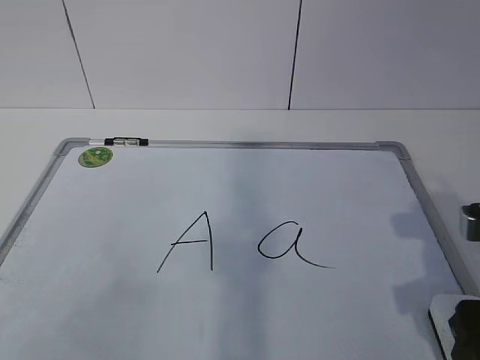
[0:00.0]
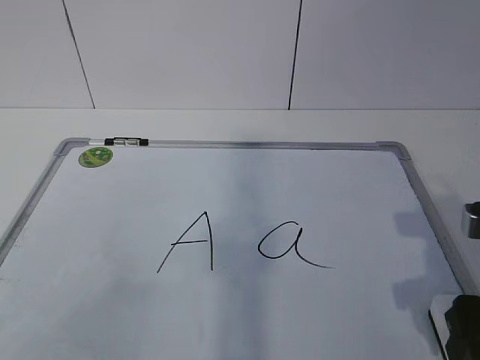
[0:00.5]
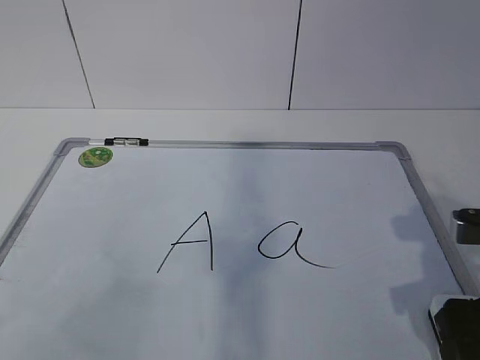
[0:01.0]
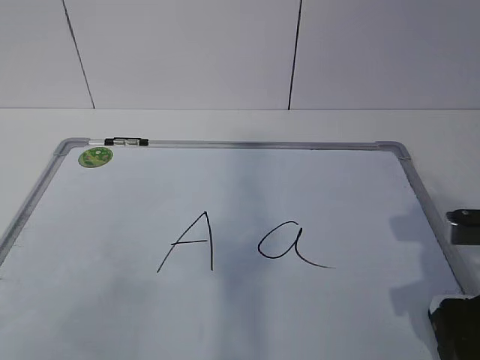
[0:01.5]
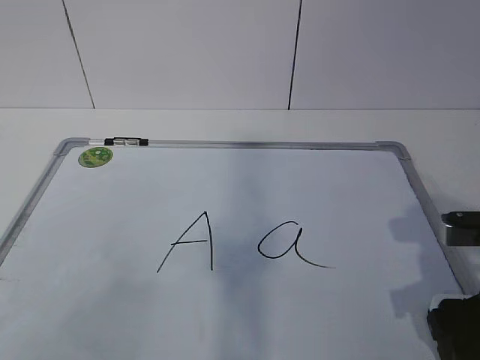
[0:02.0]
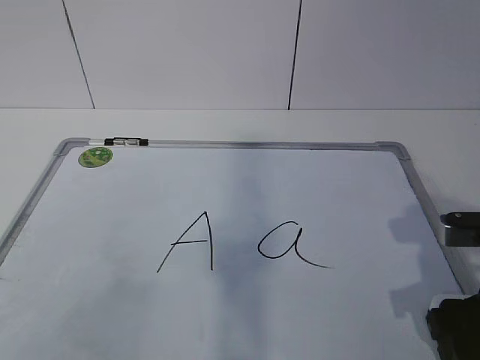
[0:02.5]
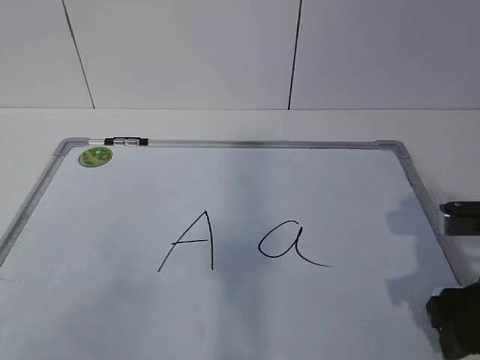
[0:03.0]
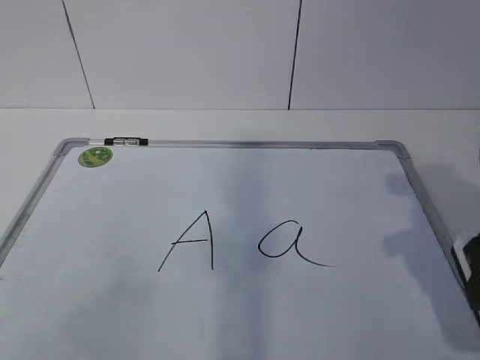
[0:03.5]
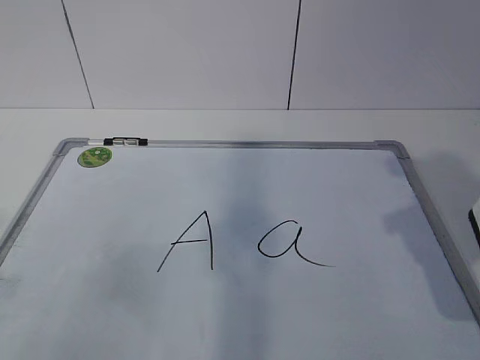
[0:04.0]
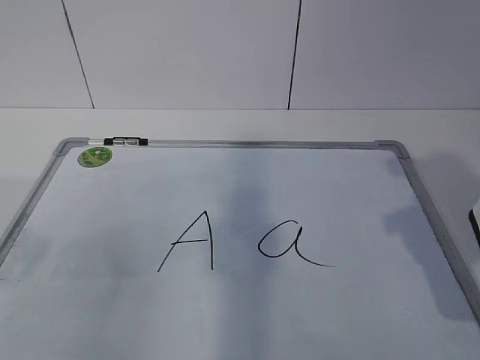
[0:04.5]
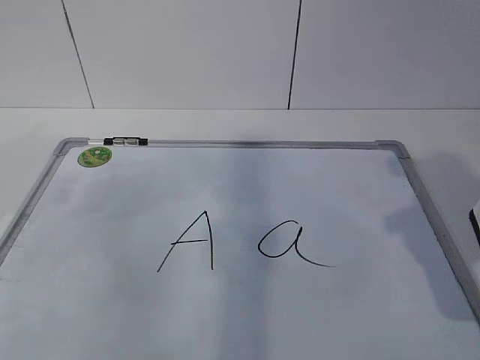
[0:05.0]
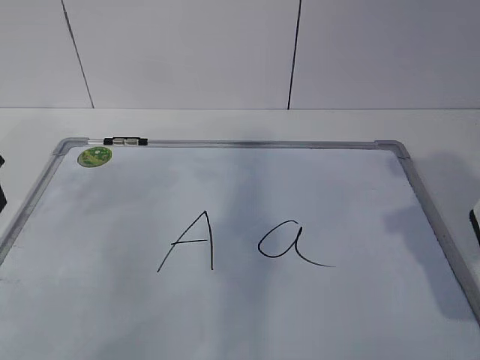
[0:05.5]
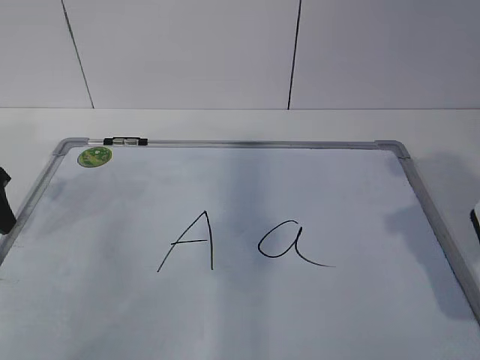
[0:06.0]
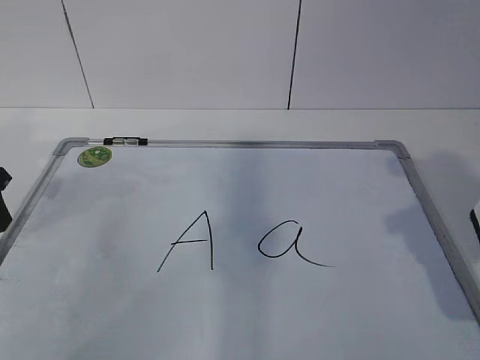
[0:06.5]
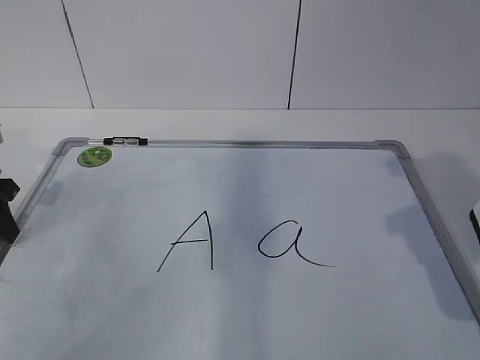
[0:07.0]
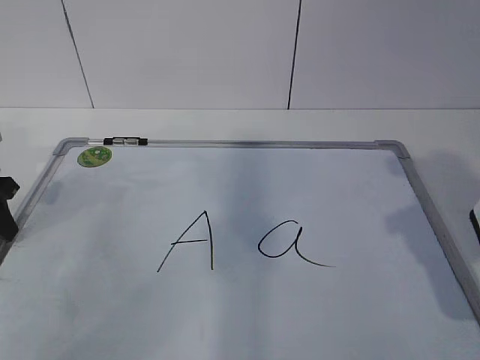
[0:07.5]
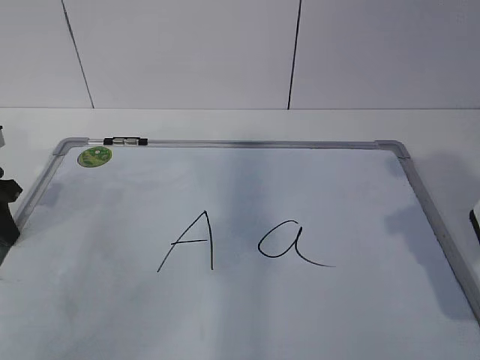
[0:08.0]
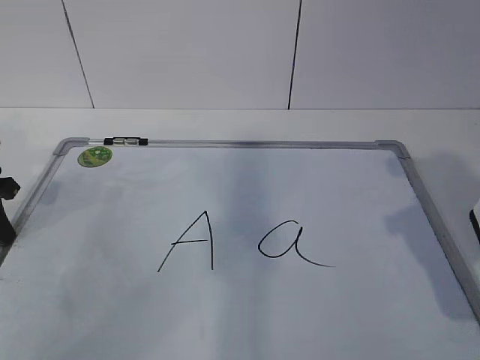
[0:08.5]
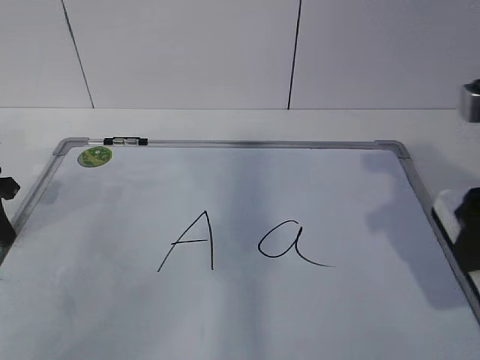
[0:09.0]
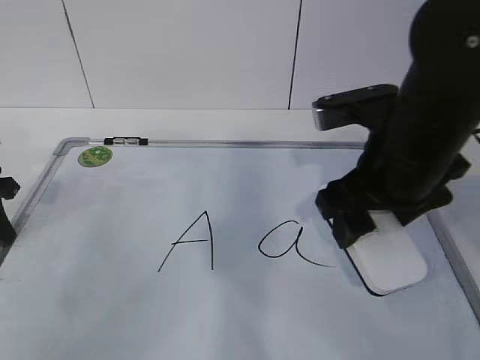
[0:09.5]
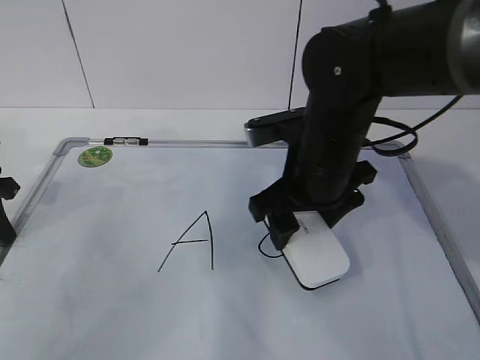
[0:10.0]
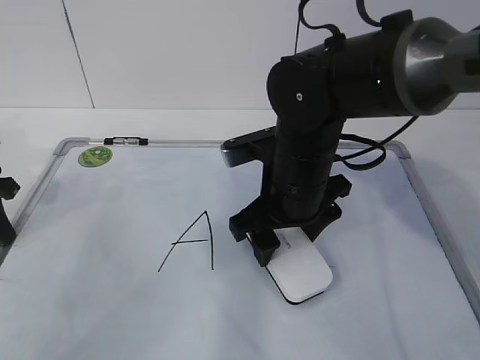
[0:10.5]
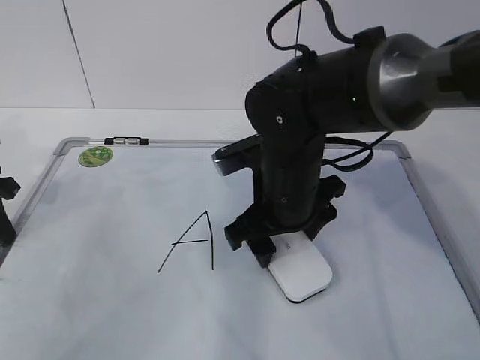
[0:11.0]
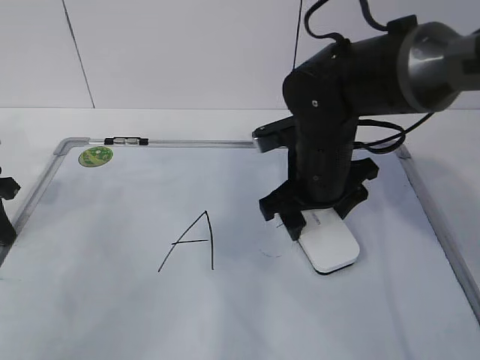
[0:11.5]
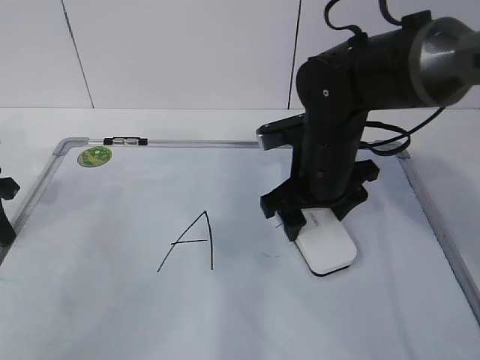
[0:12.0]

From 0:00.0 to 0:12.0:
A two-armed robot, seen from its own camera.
Task of the whole recording: pick up the eraser on the blackboard and erase the letter "a".
Step, from 0:00.5 to 0:05.0: Hold the drawing board steady with your left hand.
Step, from 0:05.5 to 0:09.5: Erase the letter a with your right hand.
From 0:00.0 to 0:02.0: The right gripper closes its fingers.
From 0:02.0 to 0:04.0: The right gripper shifts about 10 cm upward, and closes up.
From 0:04.0 to 0:06.0: The left gripper is displaced forward by about 30 cm.
From 0:06.0 to 0:08.0: The left gripper closes.
From 0:08.0 to 0:10.0: The right gripper travels to the left, forward and downward by some 25 cm.
From 0:10.0 to 0:12.0: The grippers move only a little.

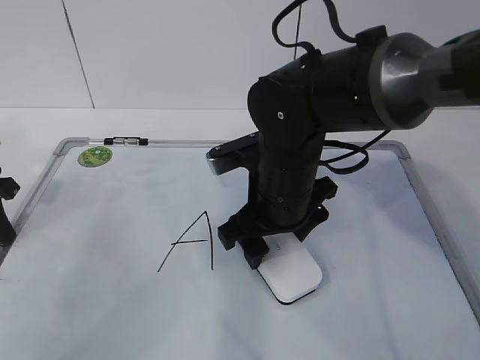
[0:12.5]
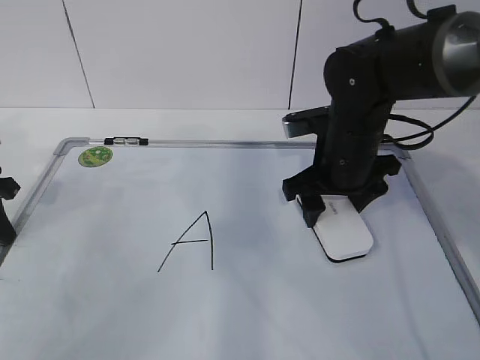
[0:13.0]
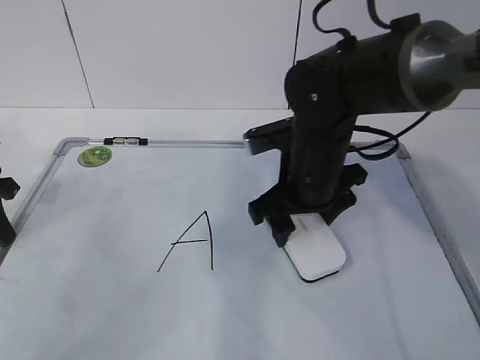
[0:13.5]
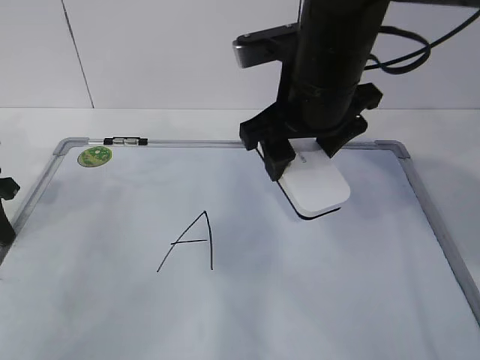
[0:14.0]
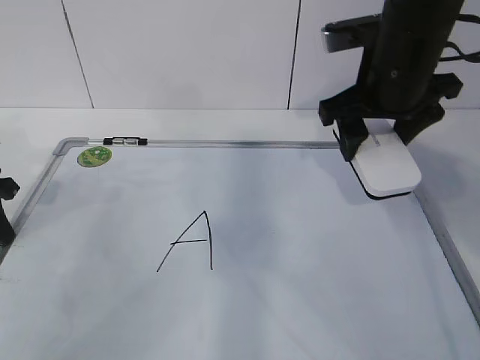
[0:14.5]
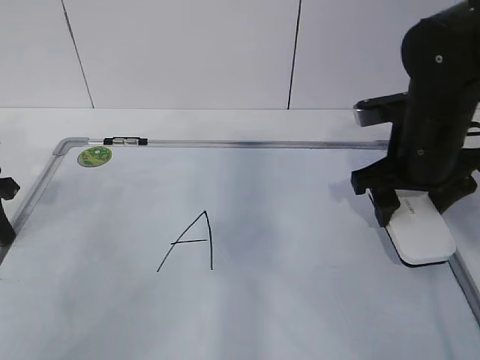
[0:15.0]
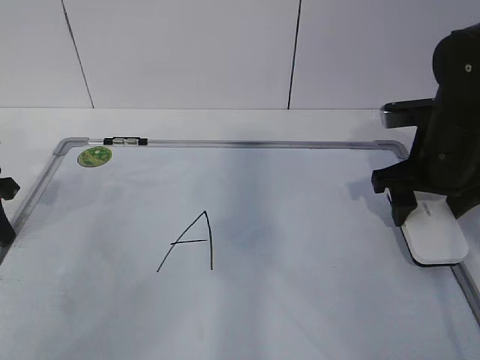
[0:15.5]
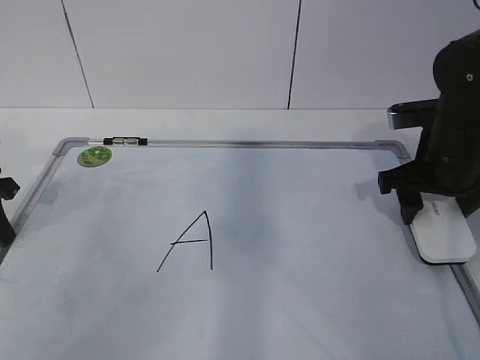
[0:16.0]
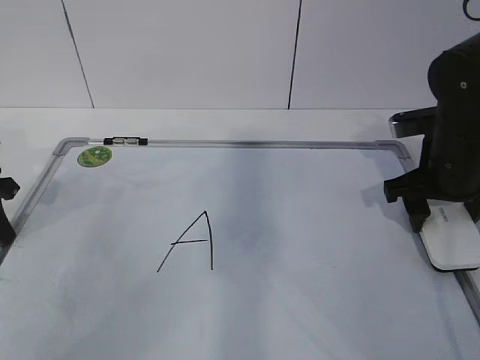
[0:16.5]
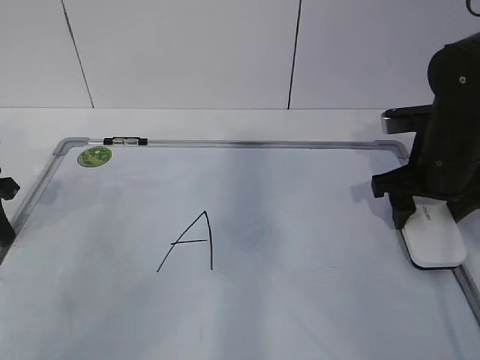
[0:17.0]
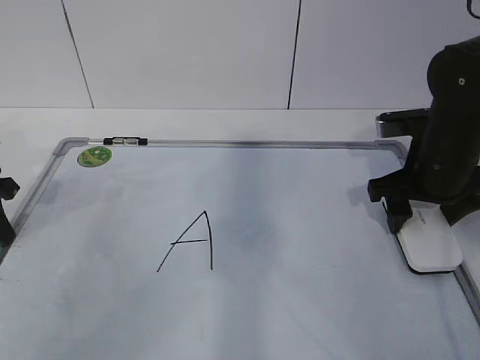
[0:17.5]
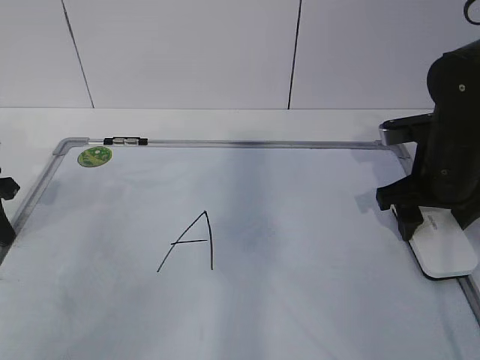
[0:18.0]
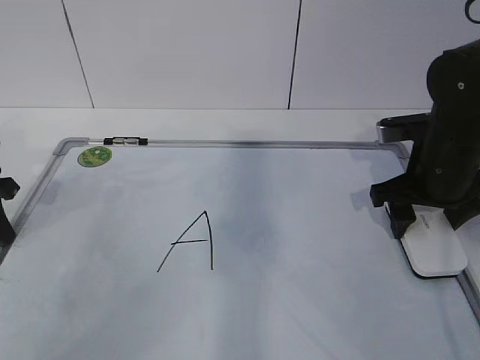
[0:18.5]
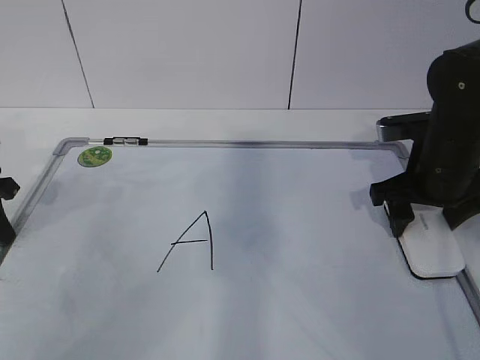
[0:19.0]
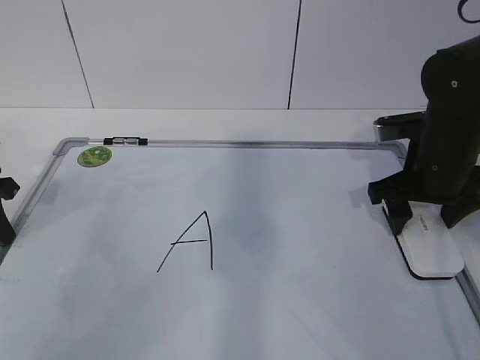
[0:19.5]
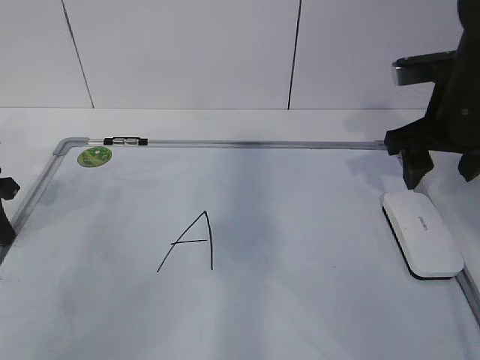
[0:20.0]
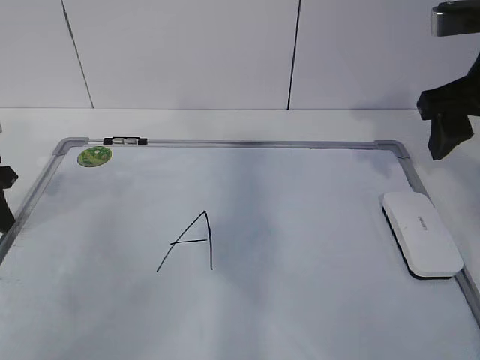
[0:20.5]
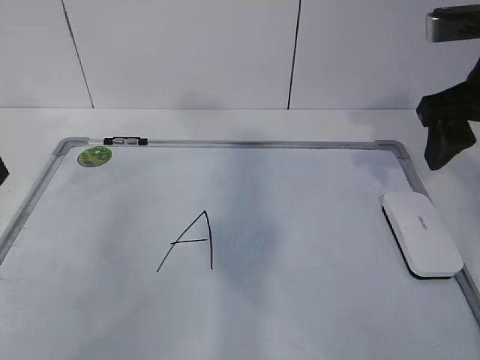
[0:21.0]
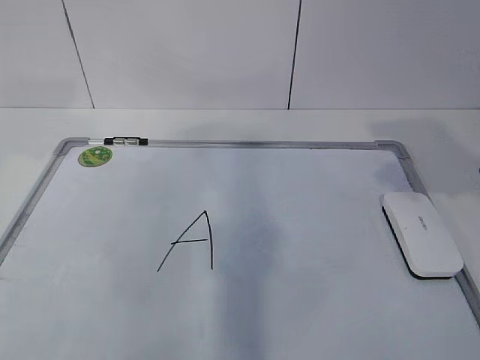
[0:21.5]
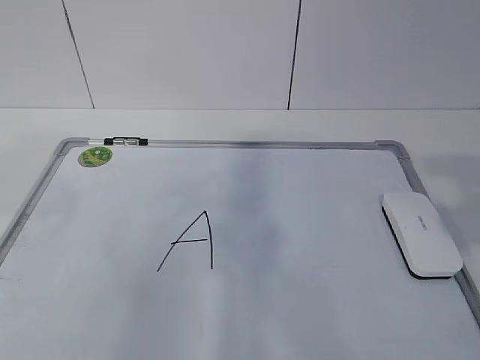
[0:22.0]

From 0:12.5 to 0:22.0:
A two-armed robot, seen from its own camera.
Task of the whole recording: pick up the eraser on the blackboard and erase the letter "a".
Step, from 0:12.5 to 0:14.5: Put down the eraser with your right hand.
From 0:12.5 to 0:14.5: The right gripper heads upward and to the right, covering approximately 15 cm.
From 0:14.5 to 0:16.5: The right gripper travels downward and to the right by roughly 15 cm.
From 0:16.5 to 0:18.0: The grippers make only small movements.
From 0:18.0 to 0:20.0: The right gripper is displaced upward by roughly 5 cm.
From 0:20.0 to 0:22.0: The right gripper is displaced backward and upward by about 25 cm, while the left gripper shifts approximately 30 cm upward and backward, and opens up.

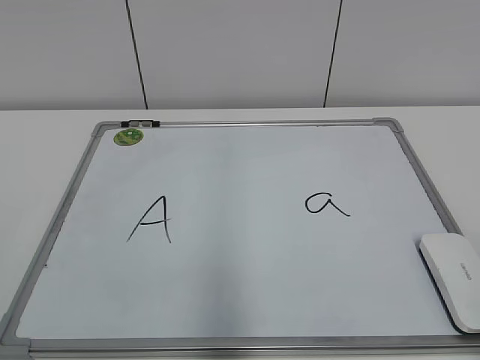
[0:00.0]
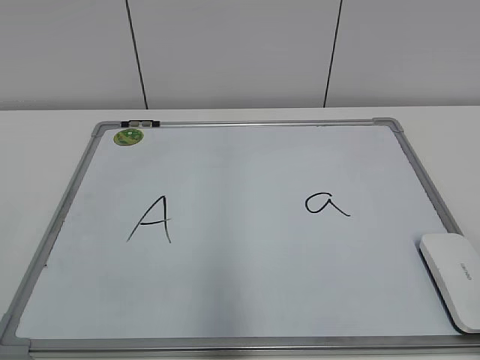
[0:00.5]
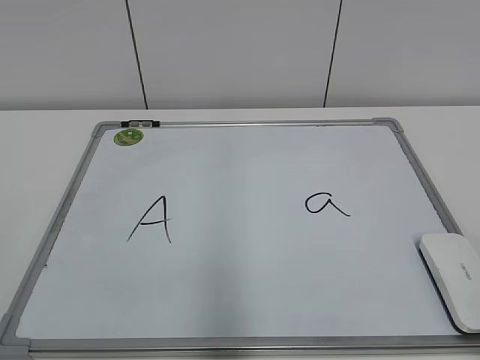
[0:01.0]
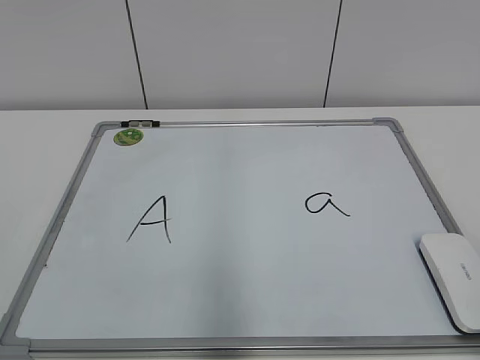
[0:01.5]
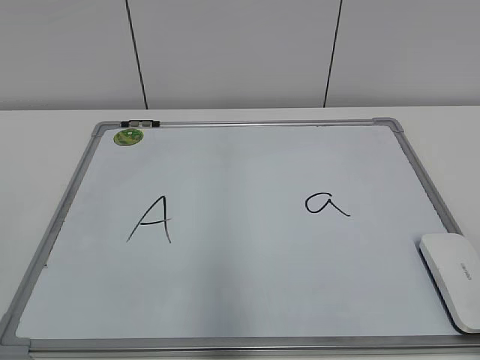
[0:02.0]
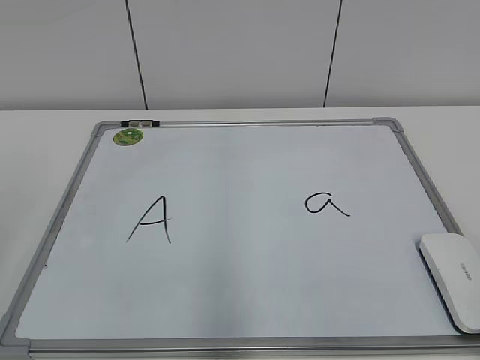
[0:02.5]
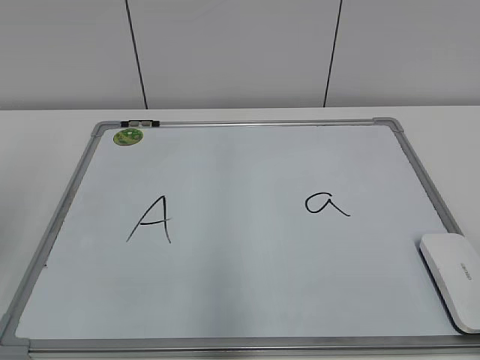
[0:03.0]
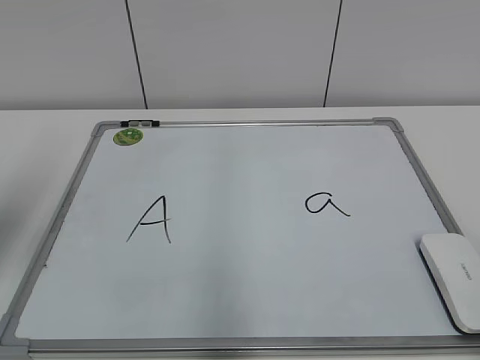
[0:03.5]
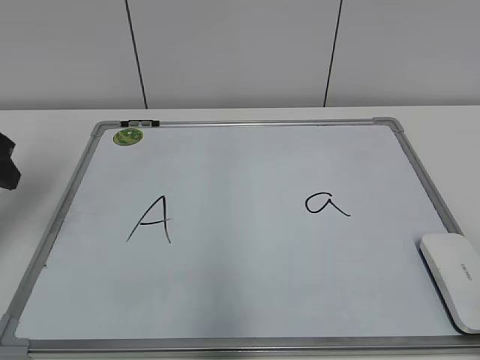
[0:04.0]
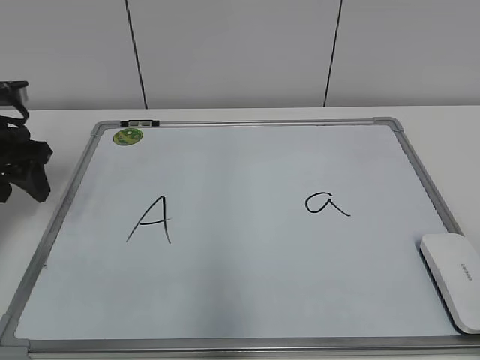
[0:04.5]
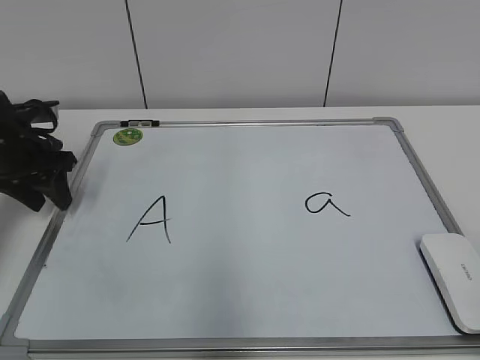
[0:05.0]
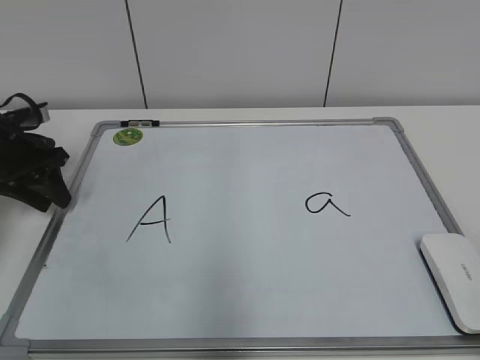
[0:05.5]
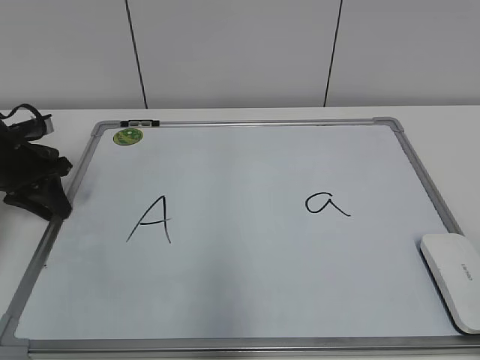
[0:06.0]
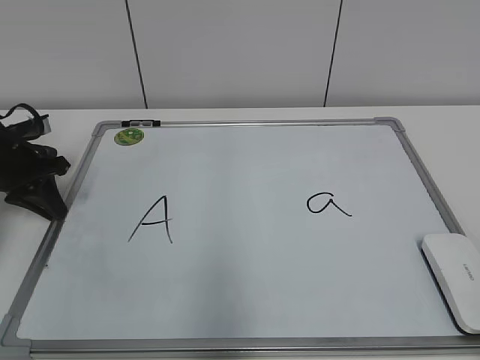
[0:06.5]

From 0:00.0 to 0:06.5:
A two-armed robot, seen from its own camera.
Task of the whole recording: pick up the eraser on the blackboard and erase the letter "a".
Step, from 0:00.0 to 0:06.0: Hold the drawing board steady with your left hand.
From 0:02.0 to 0:04.5: The left gripper travels forward by roughly 35 cm.
From 0:04.5 to 0:06.5: The left gripper heads downward, covering approximately 10 cm, and closes.
